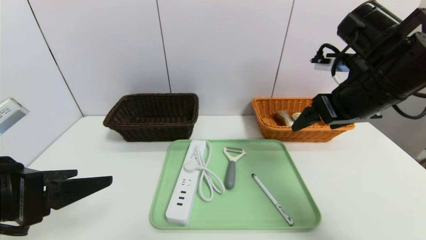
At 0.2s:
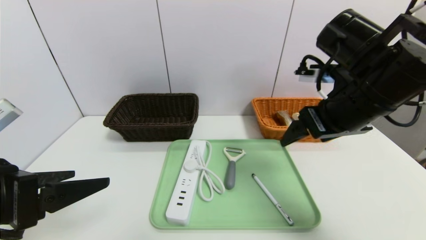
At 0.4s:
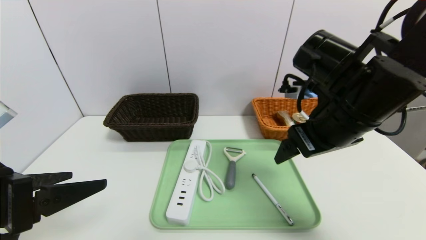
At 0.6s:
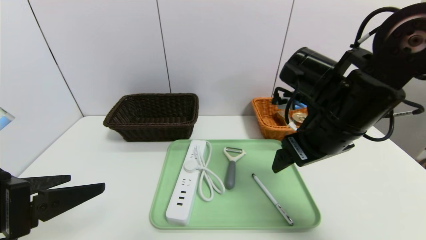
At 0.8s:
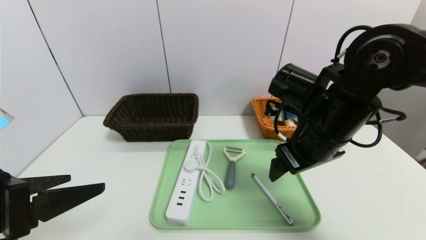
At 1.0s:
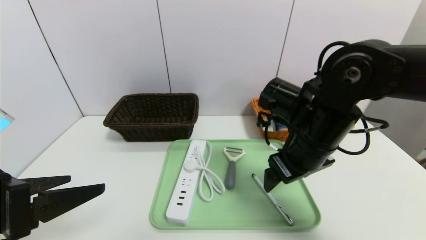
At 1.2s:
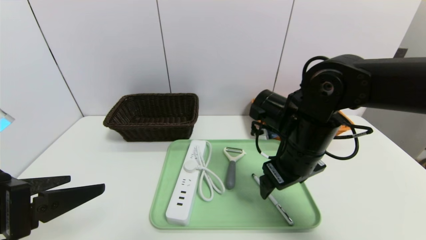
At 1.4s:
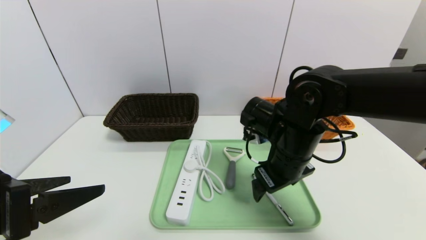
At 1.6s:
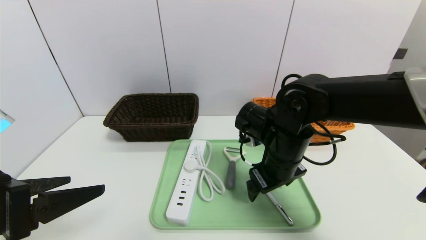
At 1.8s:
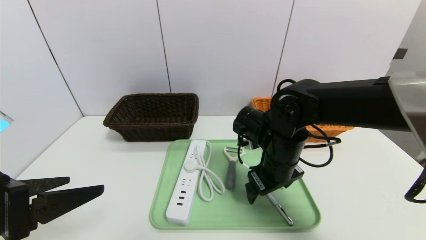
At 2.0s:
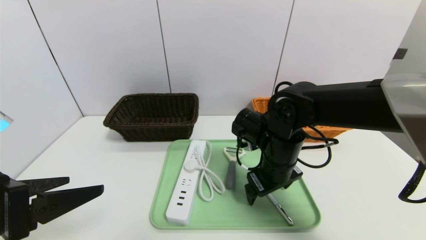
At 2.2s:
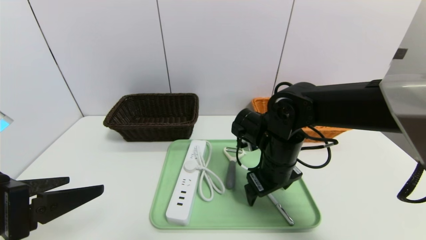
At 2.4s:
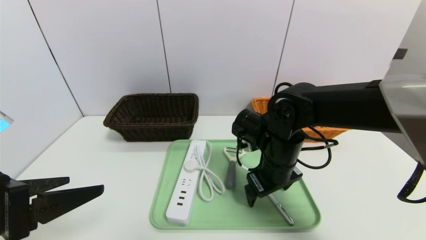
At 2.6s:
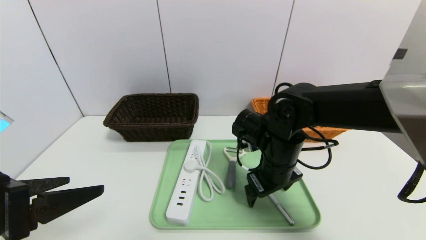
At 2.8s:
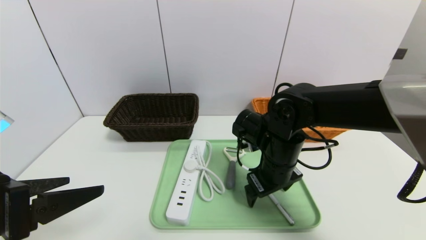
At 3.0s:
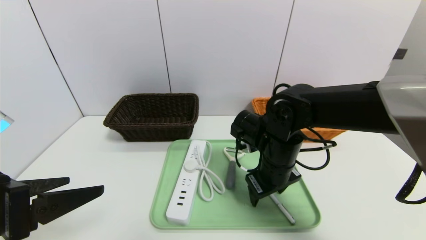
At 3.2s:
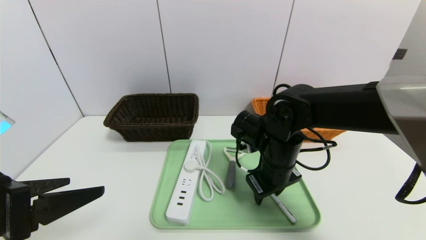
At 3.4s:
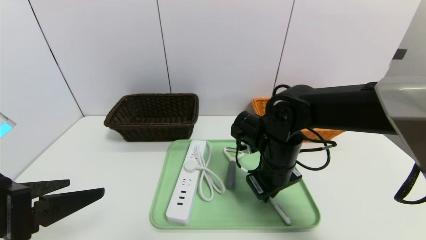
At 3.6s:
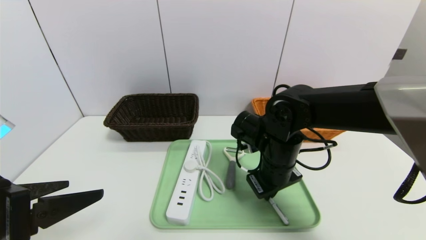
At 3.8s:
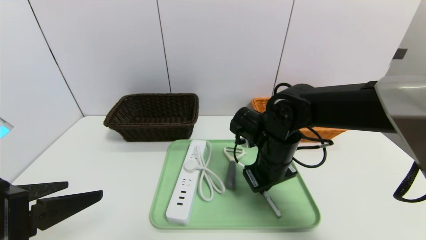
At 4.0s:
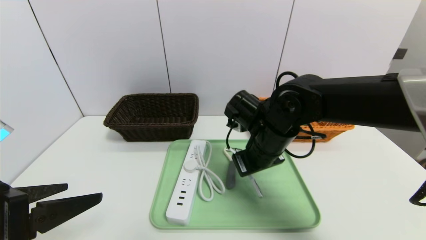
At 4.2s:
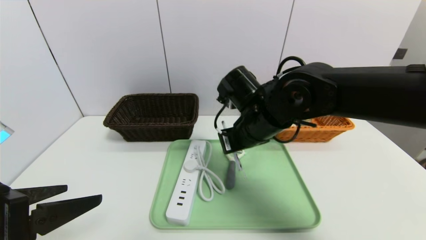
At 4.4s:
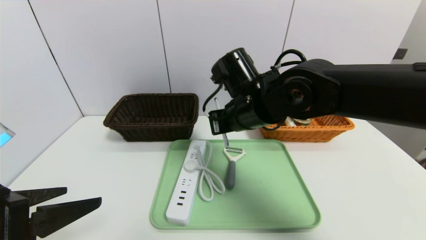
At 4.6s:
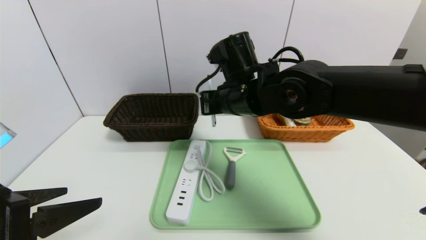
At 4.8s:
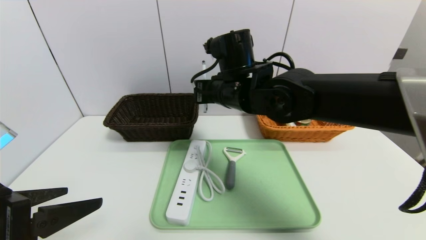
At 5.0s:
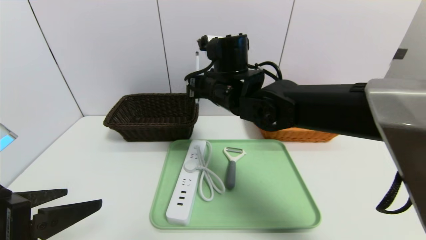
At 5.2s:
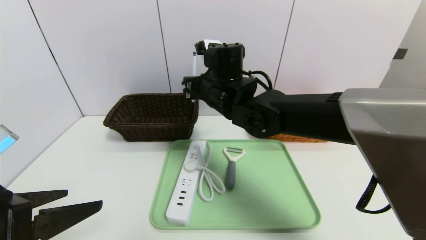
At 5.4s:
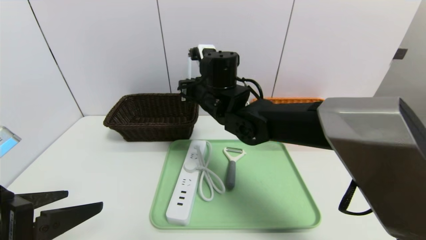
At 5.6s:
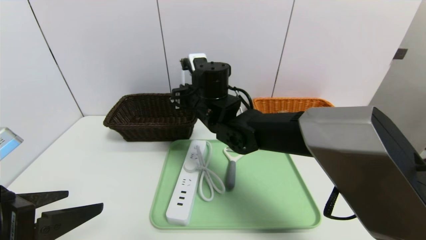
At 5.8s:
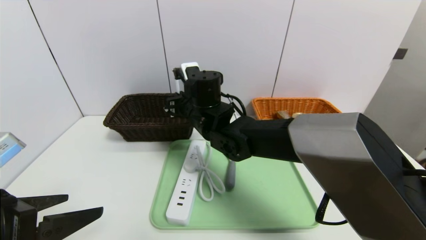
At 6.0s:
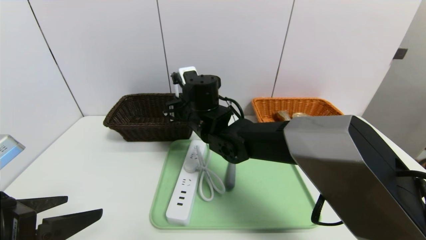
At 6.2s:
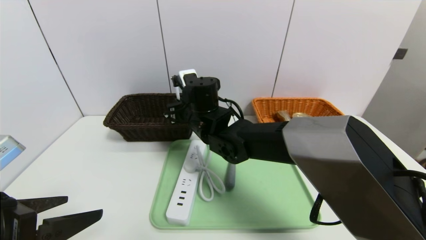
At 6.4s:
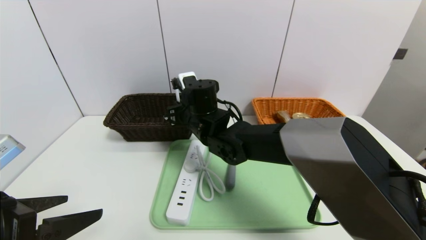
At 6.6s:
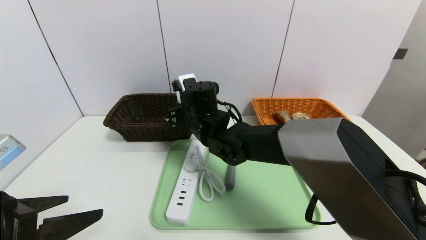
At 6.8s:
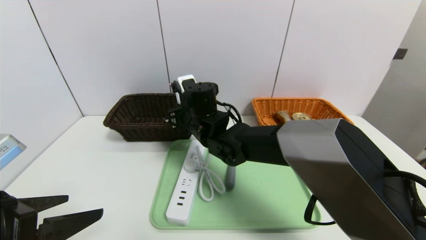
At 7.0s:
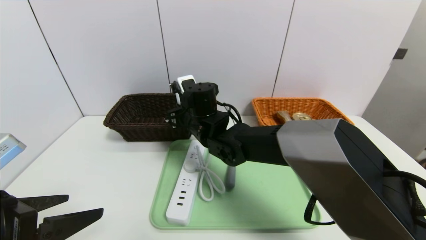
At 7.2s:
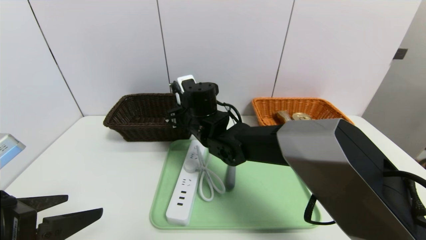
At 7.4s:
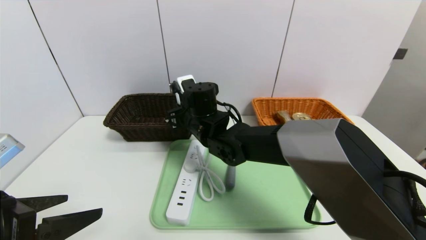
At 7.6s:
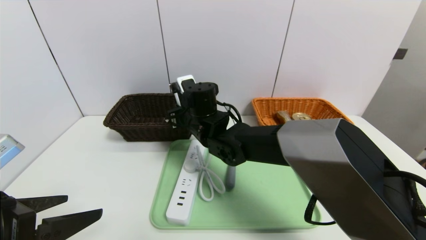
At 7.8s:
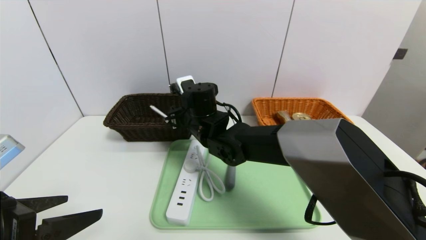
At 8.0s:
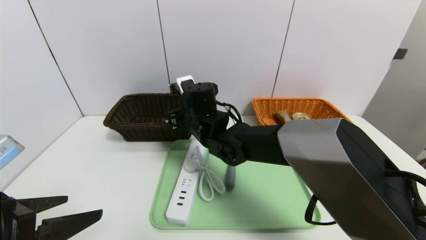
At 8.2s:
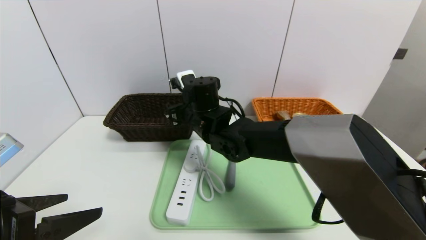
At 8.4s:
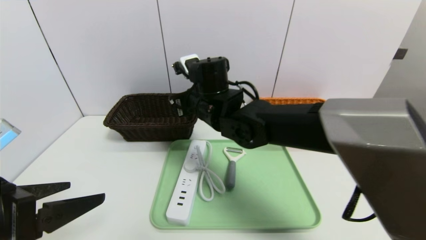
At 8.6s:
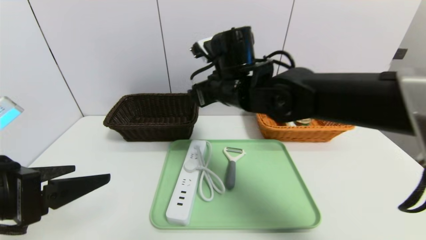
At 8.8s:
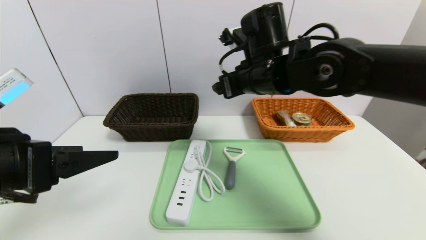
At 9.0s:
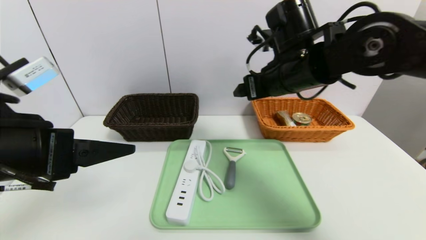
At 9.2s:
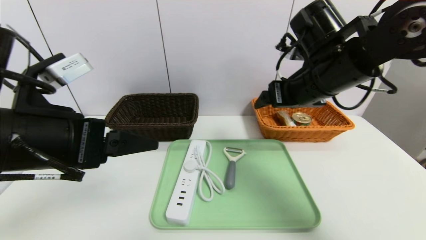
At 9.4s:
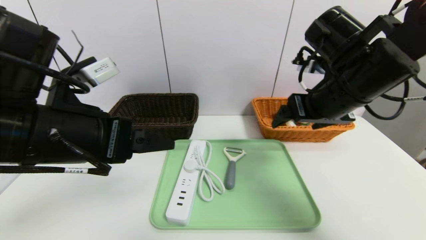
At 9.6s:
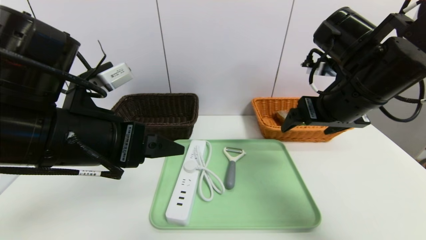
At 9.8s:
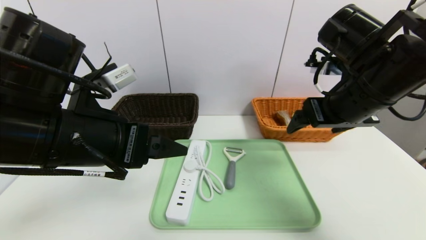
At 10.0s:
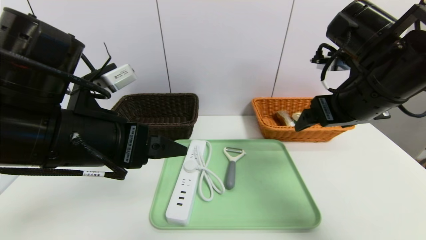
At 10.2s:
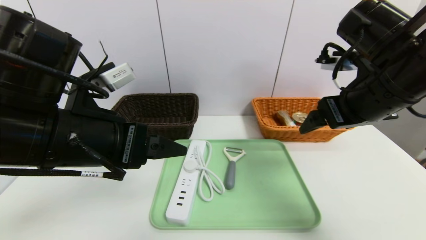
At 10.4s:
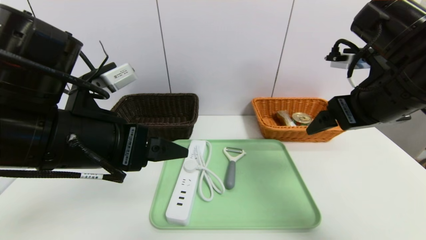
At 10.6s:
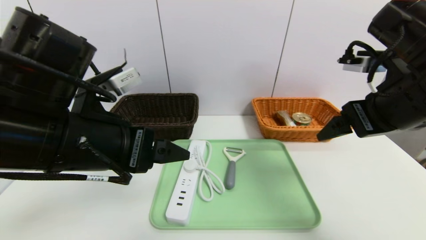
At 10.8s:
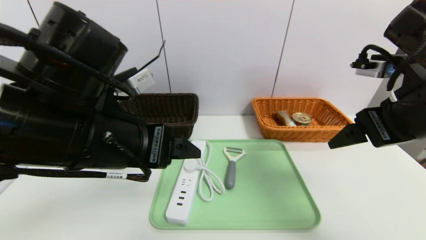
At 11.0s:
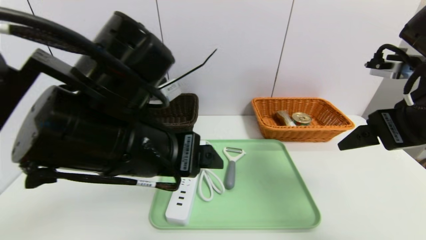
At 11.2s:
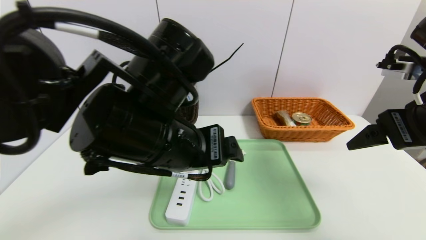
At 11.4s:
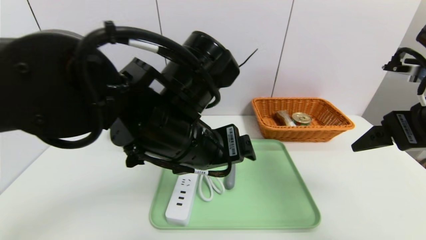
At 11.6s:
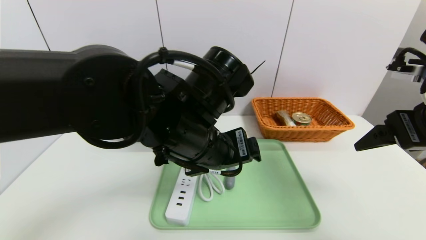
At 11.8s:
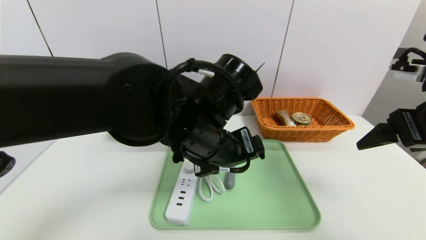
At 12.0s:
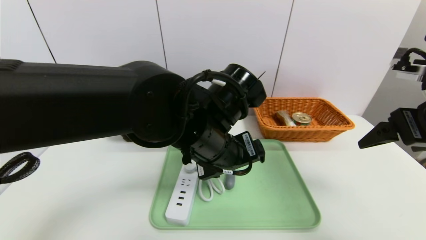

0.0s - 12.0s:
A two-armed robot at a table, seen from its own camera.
Task of the whole recording: place the food in the right basket with the right gripper, and place the non food items in the left basket with the left gripper.
0.0s - 1.6s: The right gripper heads downward and to the left, covering roughly 15 cm.
1.6s - 3.0s: There are only small adjustments of the grippers.
3.0s - 4.4s: The right gripper shifts approximately 10 cm upward and to the left, and closes its fingers.
4.4s - 6.0s: The right gripper travels to the left and downward by roughly 10 cm.
6.0s - 7.6s: The grippers move only a little.
7.6s - 9.0s: The right gripper heads to the right and upward, covering some 20 cm, and opens; the left gripper moves upward and forward, some 10 cm.
9.0s - 10.4s: The right gripper shifts approximately 15 cm to the right and backward, while the left gripper shifts roughly 5 cm to the right.
10.4s - 12.0s: The right gripper moves to the right, some 5 cm; the left gripper heads to the right, covering some 15 cm.

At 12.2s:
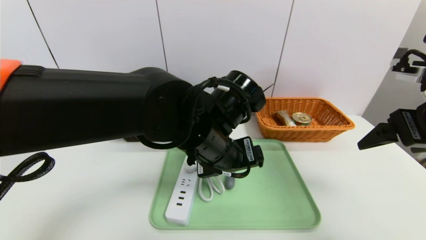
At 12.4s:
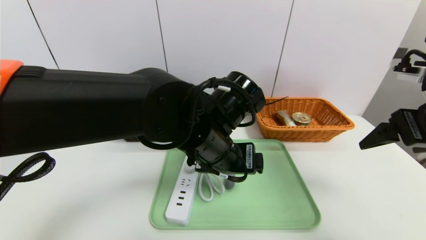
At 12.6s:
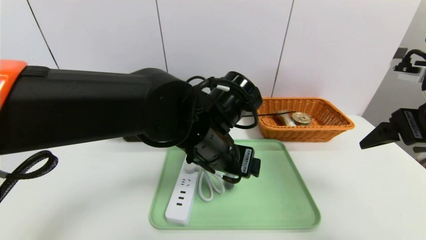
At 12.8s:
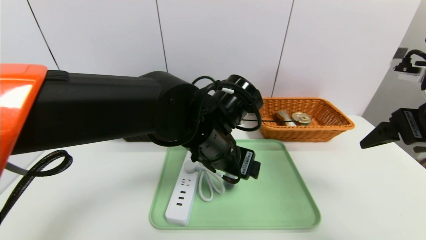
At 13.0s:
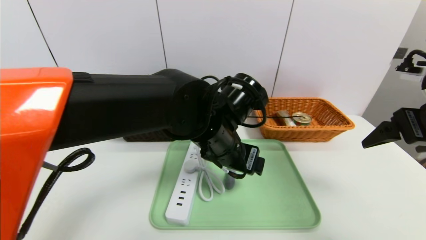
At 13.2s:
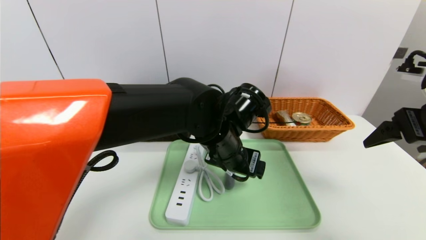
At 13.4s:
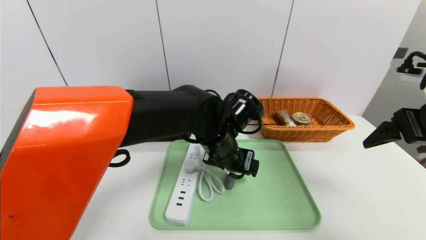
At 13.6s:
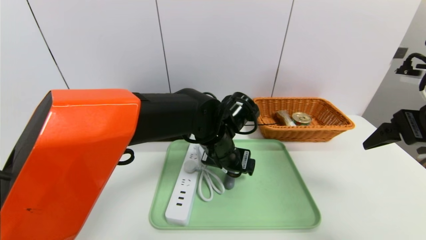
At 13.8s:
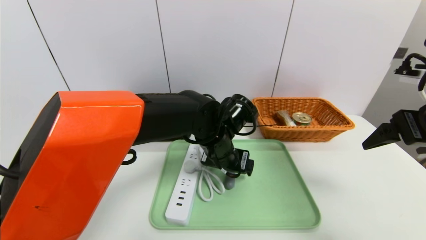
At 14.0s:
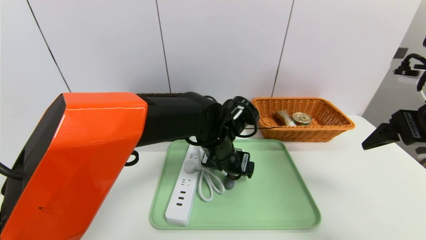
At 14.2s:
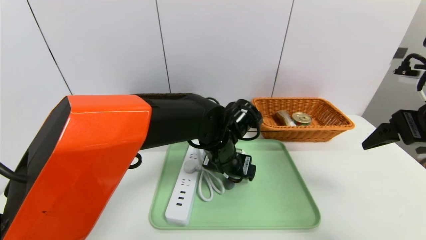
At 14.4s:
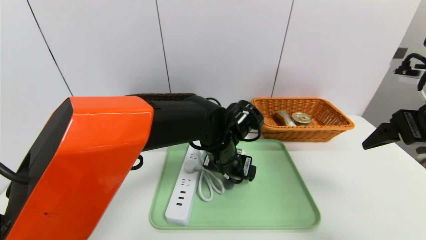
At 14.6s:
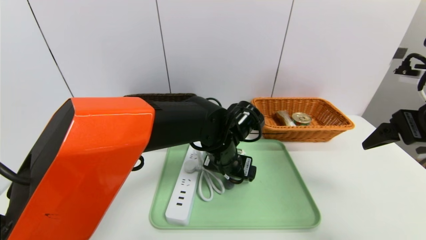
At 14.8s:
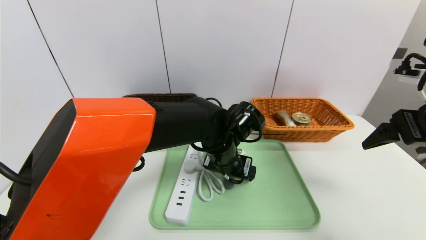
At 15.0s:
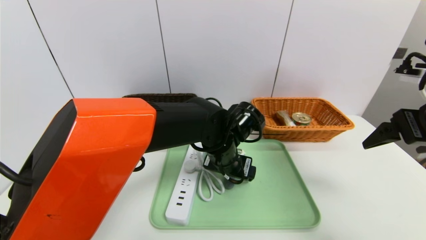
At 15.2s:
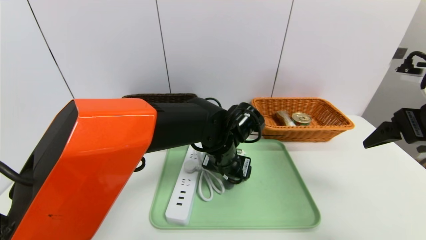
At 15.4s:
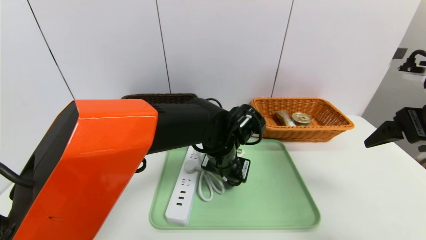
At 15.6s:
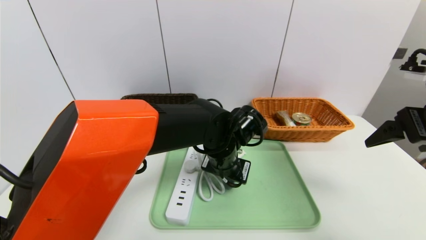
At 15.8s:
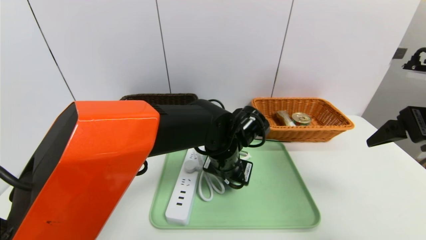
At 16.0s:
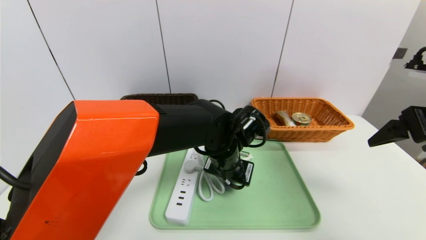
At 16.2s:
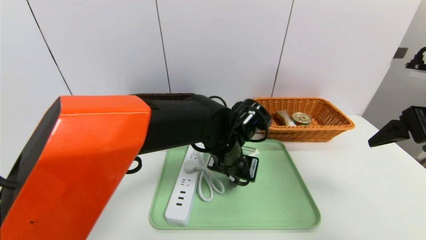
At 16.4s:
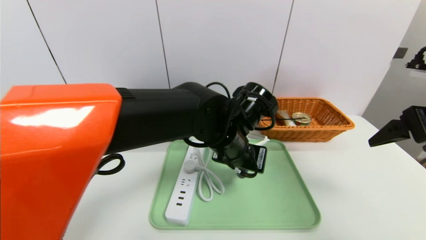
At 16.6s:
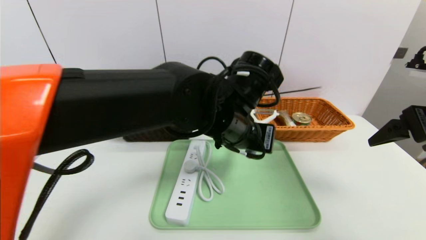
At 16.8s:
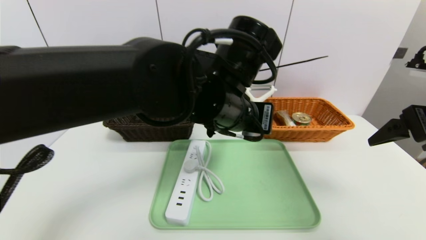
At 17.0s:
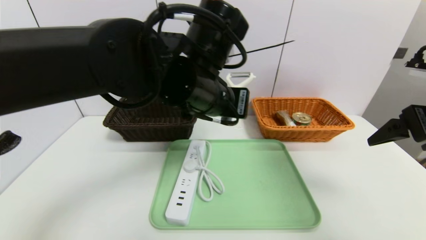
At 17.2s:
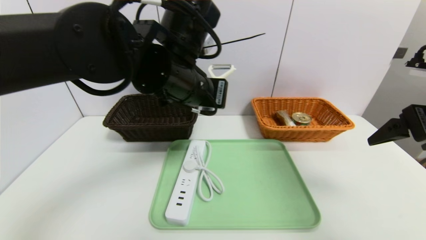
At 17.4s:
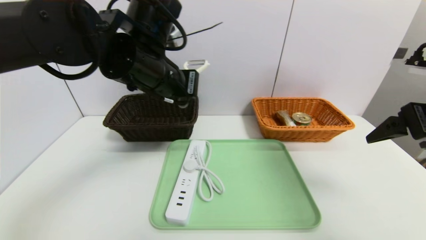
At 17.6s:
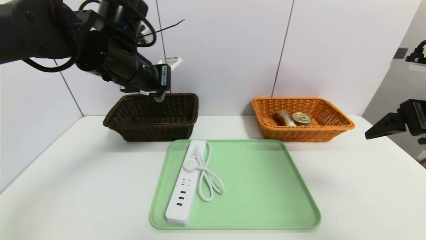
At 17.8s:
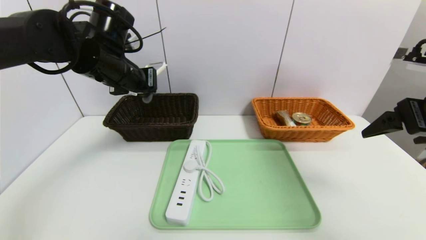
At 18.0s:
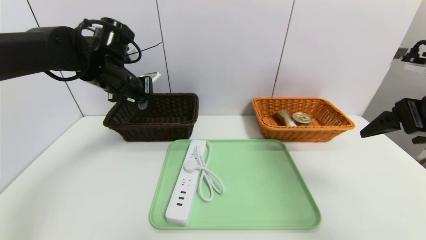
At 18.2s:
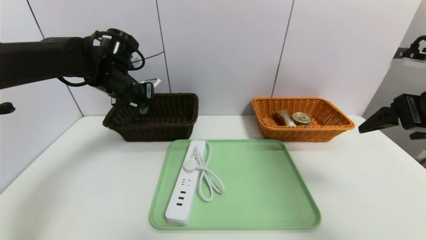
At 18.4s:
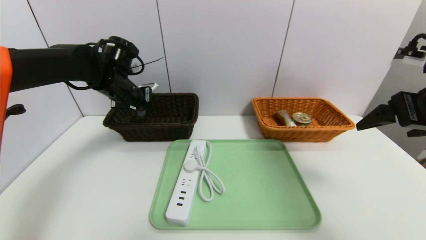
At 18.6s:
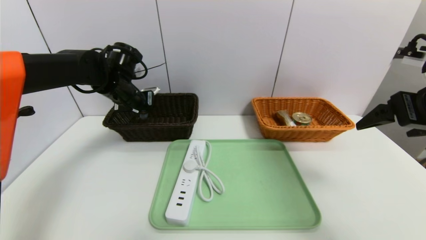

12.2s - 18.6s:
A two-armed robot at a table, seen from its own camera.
Task of the whole recording: place the food in the right basket with the right gripper, and place the non food items in the left basket with the left gripper.
12.2s - 13.8s: The left gripper goes about 10 cm forward and downward.
13.8s - 15.4s: The left gripper closes.
15.4s - 17.0s: The left gripper is displaced upward by approximately 15 cm, and closes.
17.0s - 18.6s: The left gripper goes roughly 25 cm to the left and forward.
